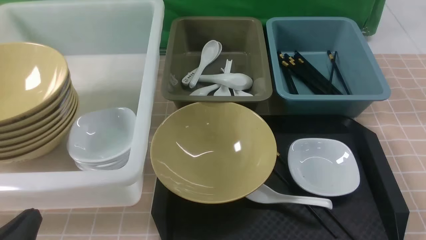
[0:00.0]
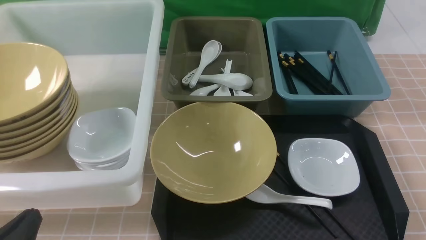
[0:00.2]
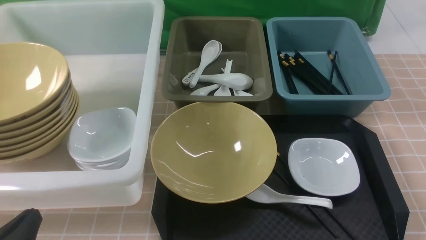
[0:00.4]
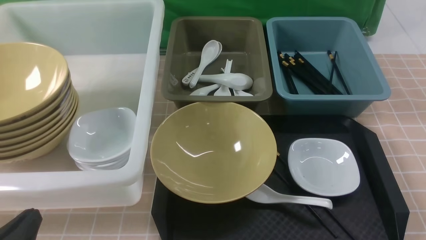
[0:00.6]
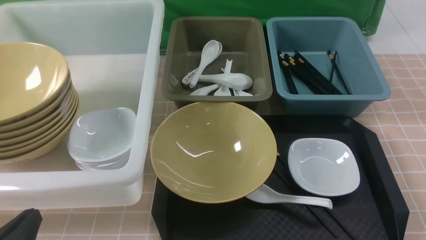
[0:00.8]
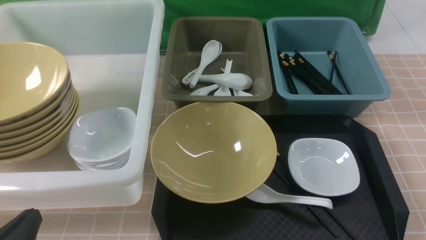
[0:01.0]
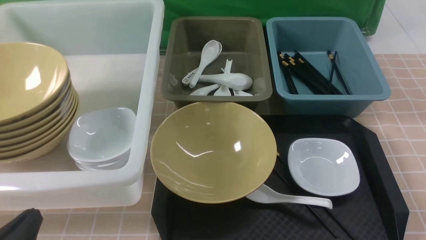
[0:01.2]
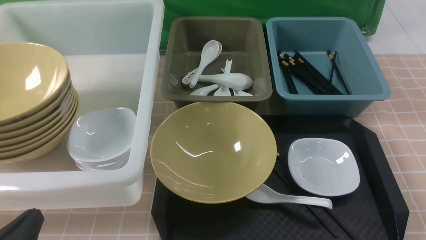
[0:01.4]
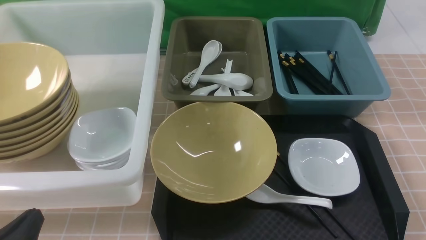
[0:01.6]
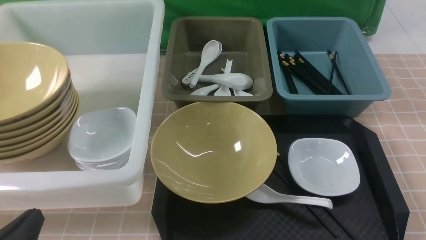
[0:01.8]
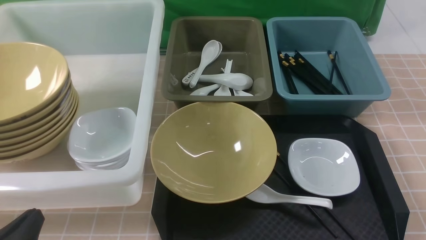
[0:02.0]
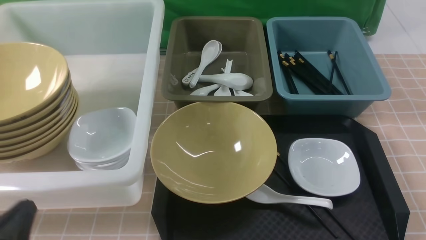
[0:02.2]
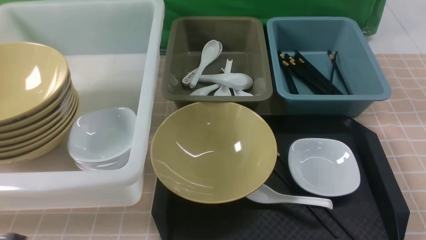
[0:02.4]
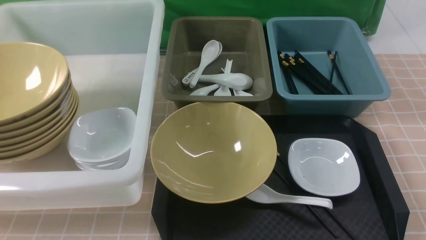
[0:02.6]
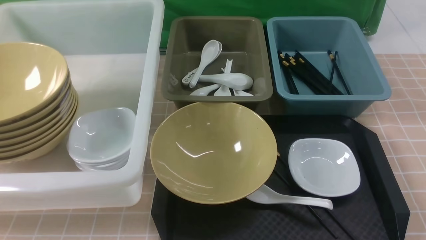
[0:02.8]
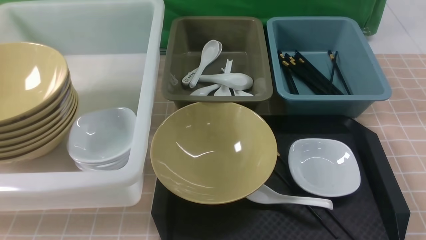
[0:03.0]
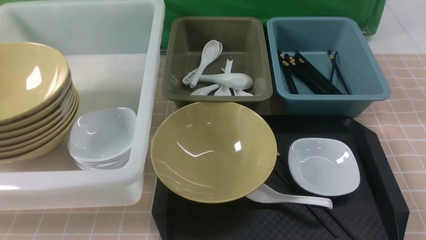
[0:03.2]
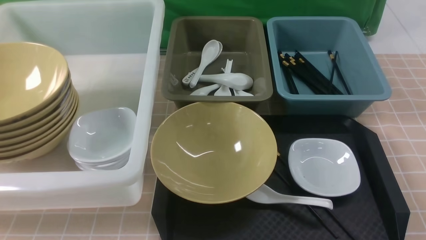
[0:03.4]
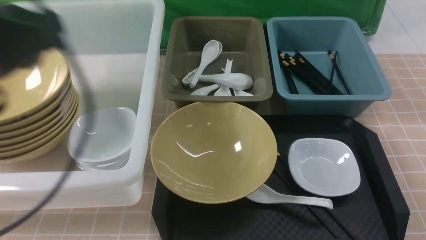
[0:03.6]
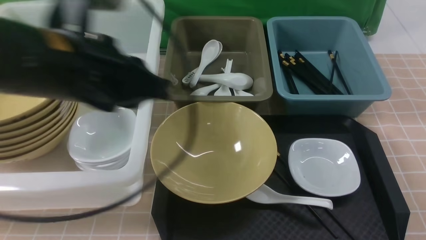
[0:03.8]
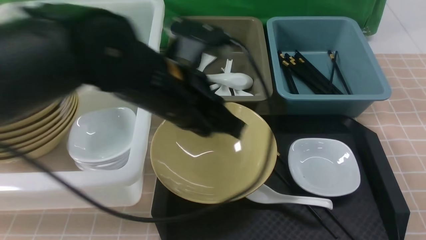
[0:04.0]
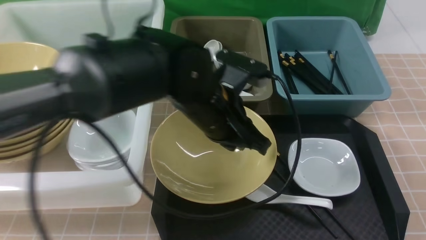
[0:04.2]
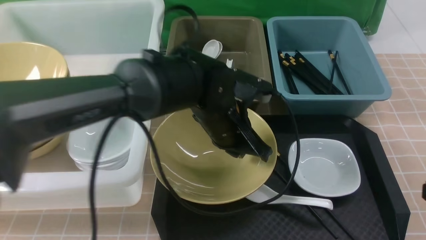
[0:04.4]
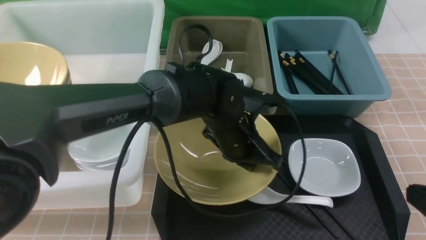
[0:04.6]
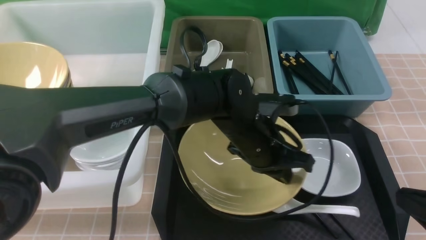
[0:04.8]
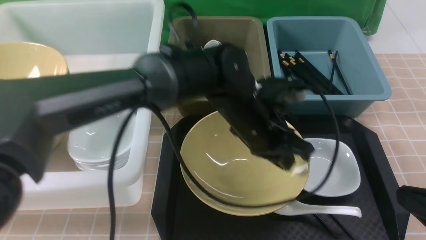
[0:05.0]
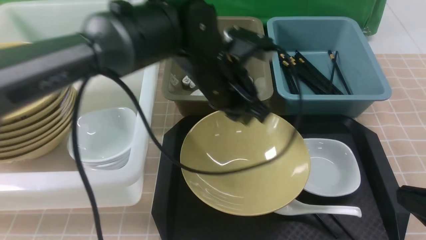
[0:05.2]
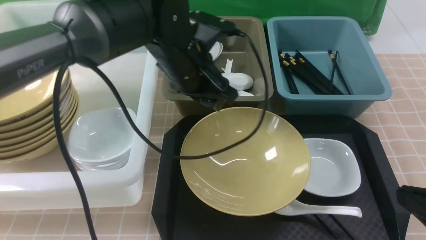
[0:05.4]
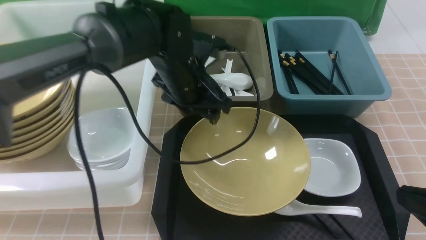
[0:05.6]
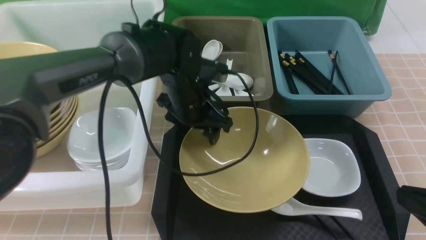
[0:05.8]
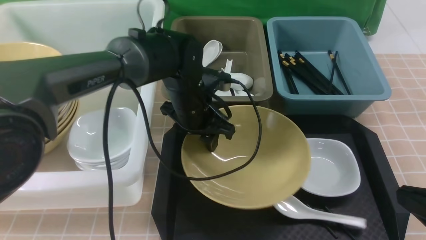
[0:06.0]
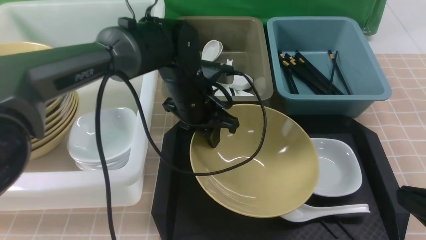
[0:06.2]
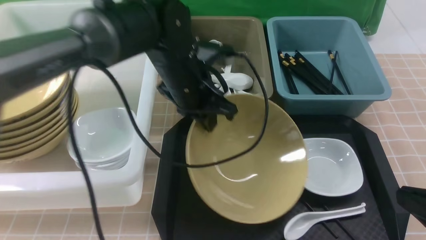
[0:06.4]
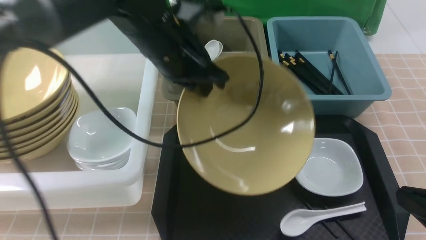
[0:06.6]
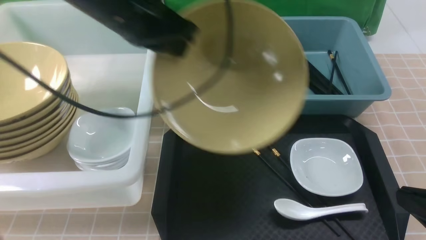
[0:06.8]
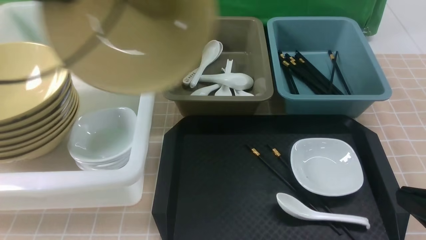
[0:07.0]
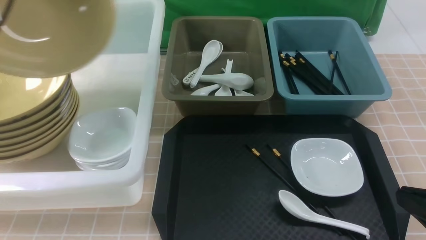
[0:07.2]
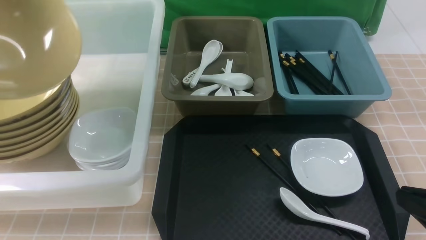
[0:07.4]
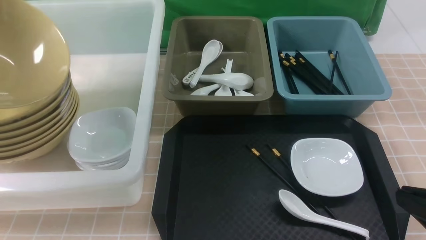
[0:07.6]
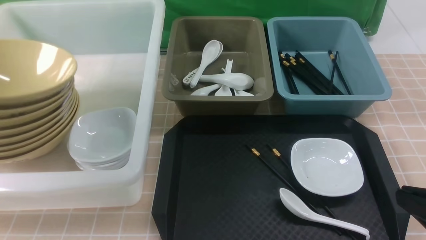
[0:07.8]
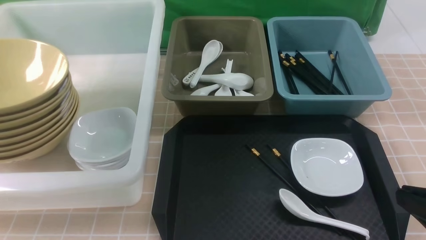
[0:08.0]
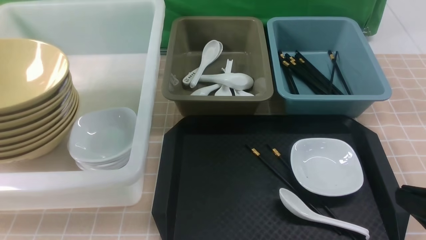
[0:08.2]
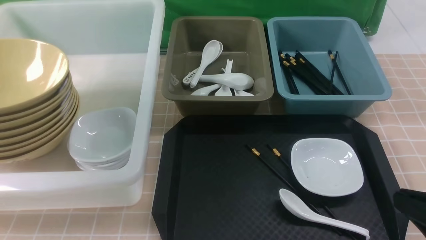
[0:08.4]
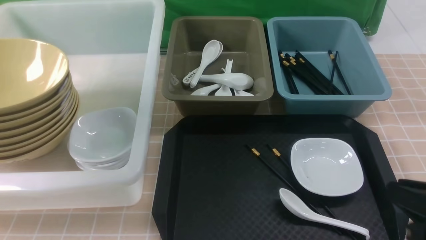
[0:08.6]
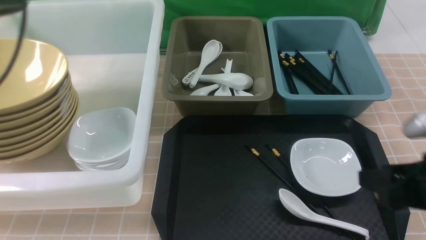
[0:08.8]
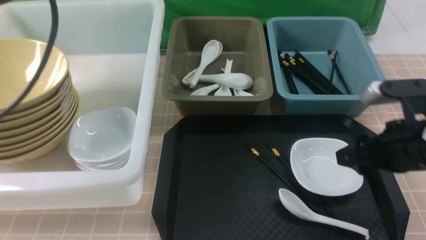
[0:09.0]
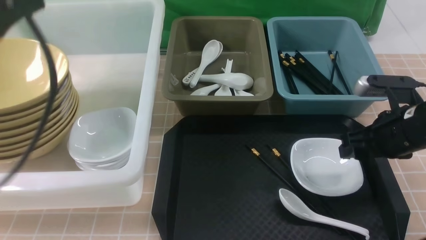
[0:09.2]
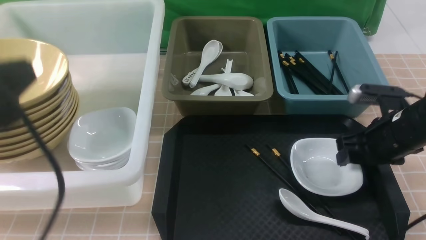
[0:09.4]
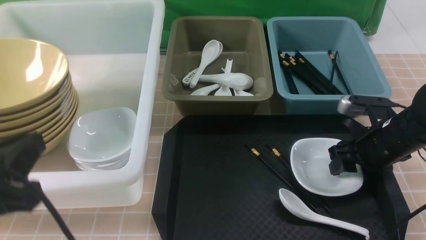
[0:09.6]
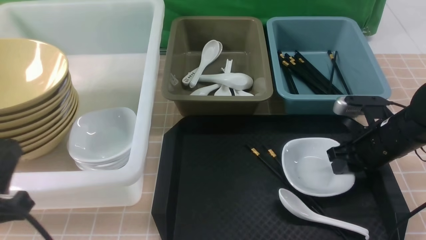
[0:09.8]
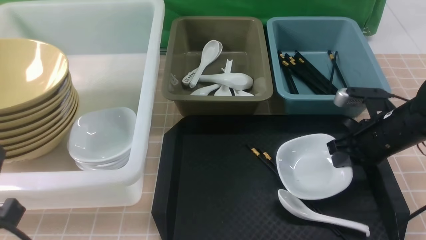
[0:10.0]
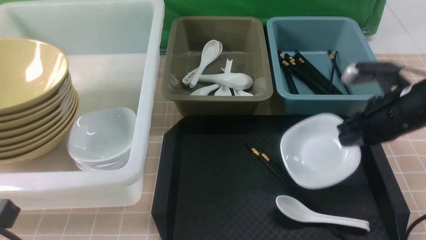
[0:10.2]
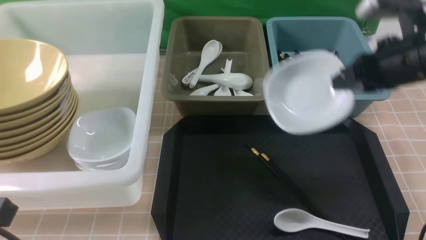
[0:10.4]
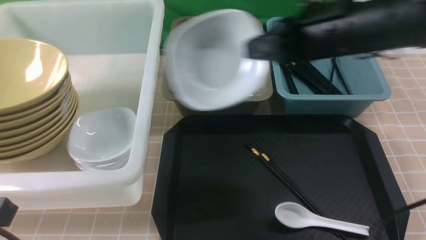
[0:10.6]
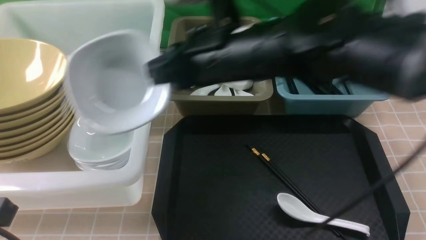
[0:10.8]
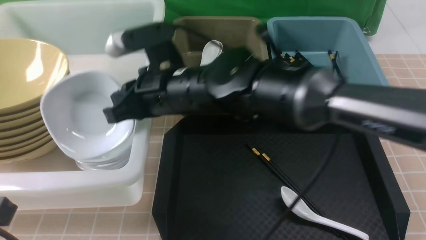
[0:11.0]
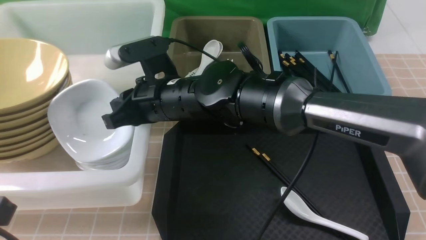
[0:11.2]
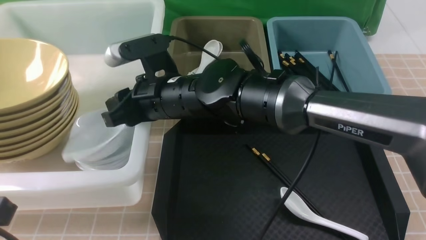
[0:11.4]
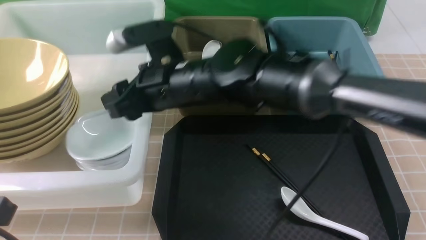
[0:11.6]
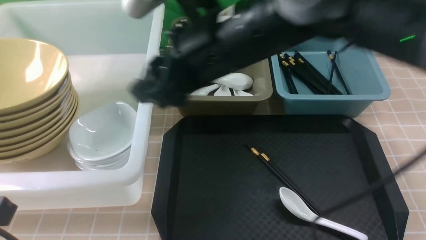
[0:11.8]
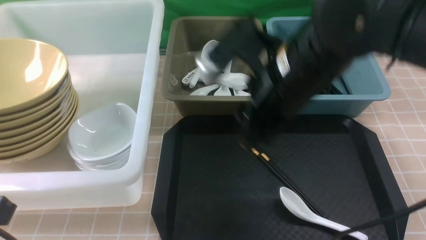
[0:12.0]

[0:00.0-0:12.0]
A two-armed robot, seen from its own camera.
Task of the whole recording: on brown table put chopsticks spoon bowls plates into blue grey white boxes.
Step, 0:00.0 to 0:06.2: use the left arm to grab the yellow noodle bowl on the left.
Step, 0:06.4 to 0:08.2: use the left arm to put the noodle bowl into the large storage box on the left.
Step, 0:08.4 to 0:09.8: use the right arm to grab the plate.
Step, 0:10.0 to 0:11.6: use the right arm to put the plate into the large storage box on the left.
0:00.0 to 0:01.6: Both grippers stay about where they are.
0:01.6 to 0:03.0: The grippers both shift upward by roughly 15 cm.
0:03.0 to 0:04.4: The right gripper heads forward, covering roughly 5 cm. Meanwhile the left gripper shifts some 40 cm forward, to the right and downward.
0:04.4 to 0:06.0: The left gripper moves forward and to the left, roughly 10 cm, and opens.
0:06.0 to 0:07.6: The left gripper moves to the left and upward, about 40 cm.
0:07.6 to 0:09.0: The right gripper travels forward by about 15 cm, and opens its fingers, while the left gripper moves to the right, upward and backward, approximately 20 cm, and opens and closes again.
0:09.0 to 0:10.4: The right gripper is displaced forward and upward by approximately 10 cm, and closes. The left gripper travels downward and backward by some 20 cm.
0:10.4 to 0:12.0: The right gripper is displaced to the left by roughly 10 cm, and opens up.

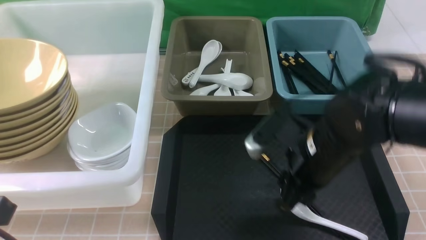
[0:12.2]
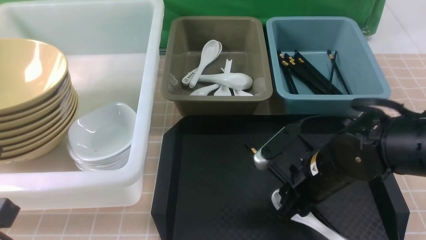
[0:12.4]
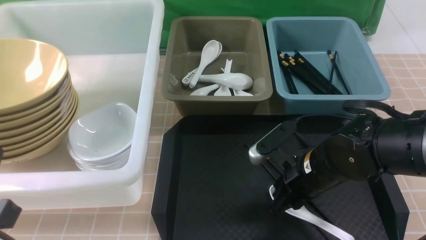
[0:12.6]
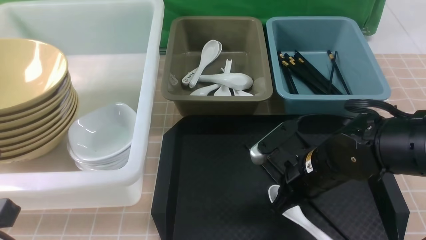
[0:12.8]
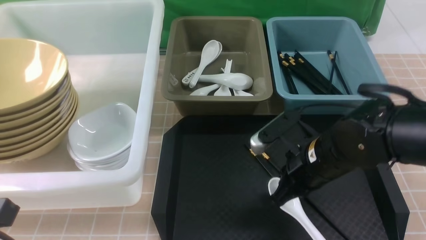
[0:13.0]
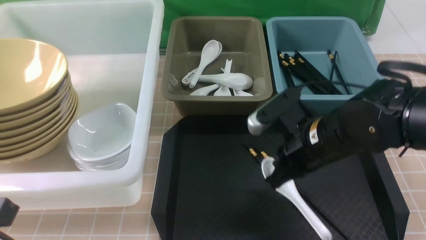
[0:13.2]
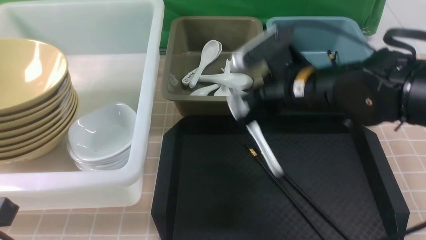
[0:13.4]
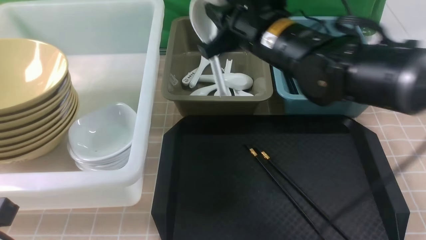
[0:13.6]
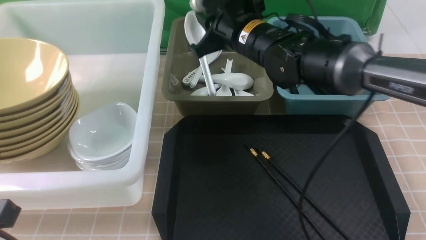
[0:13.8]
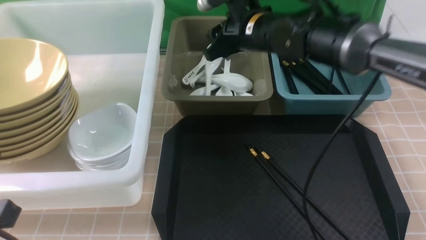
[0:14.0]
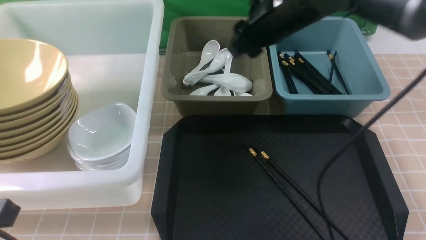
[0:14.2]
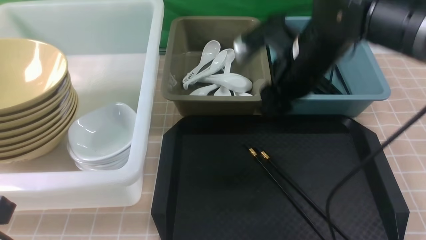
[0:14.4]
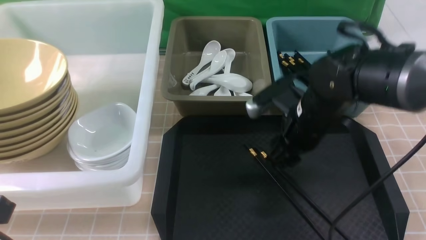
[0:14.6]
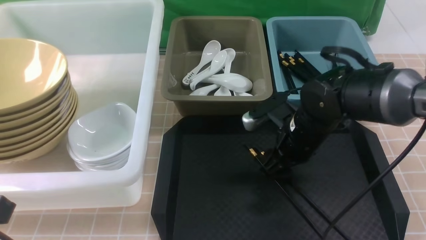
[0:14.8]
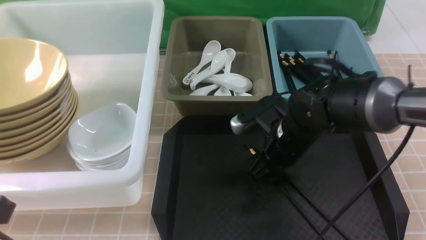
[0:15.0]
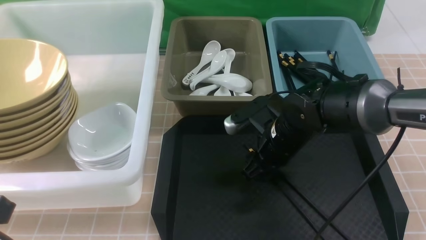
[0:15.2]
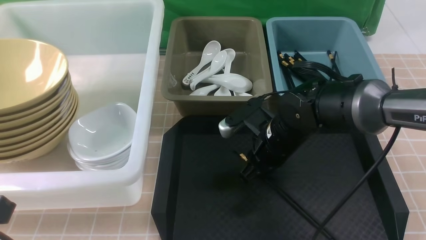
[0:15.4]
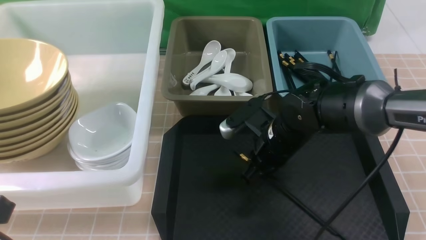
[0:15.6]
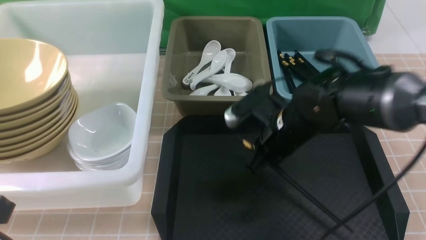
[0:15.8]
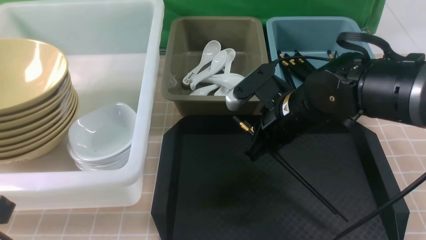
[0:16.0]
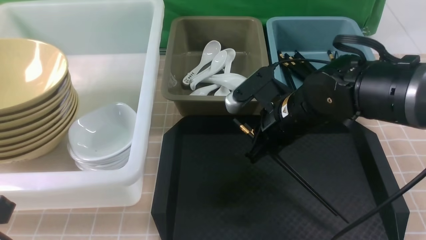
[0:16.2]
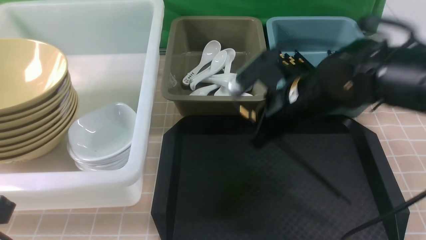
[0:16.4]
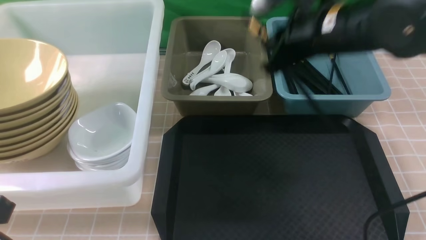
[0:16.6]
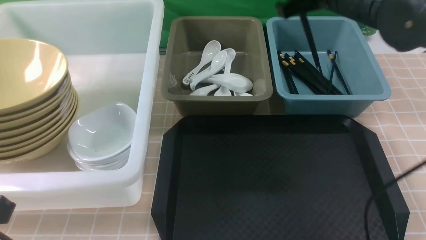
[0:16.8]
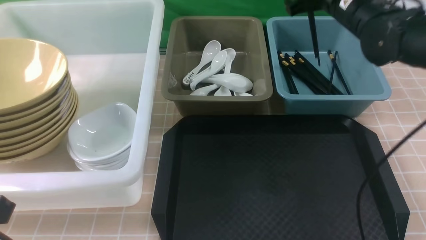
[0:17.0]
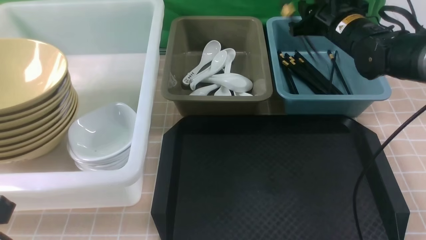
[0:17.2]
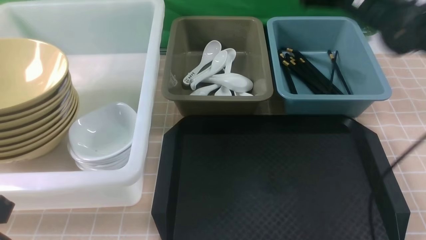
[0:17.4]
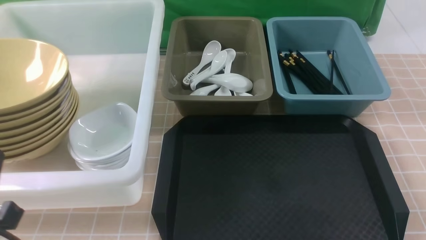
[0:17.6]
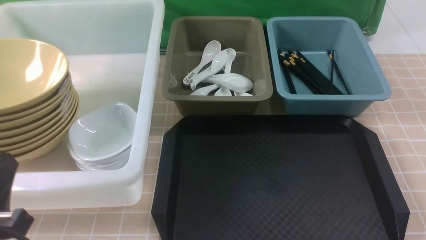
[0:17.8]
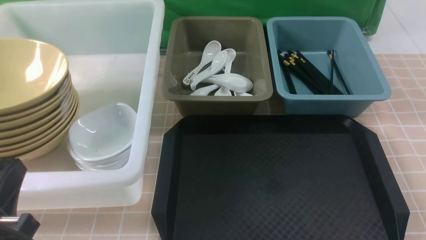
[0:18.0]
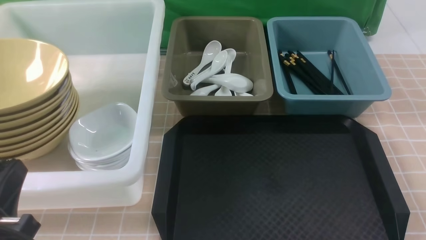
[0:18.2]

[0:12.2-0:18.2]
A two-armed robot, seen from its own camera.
Task of the whole recording: on brown table put chopsticks spoon bowls plates into blue grey white boxes.
Step, 0:12.2 to 0:13.0: use the right arm to grab the soup spoon in the middle.
Step, 0:13.2 to 0:14.0: use the right arm to put the soup spoon into the small storage box in the middle.
Step, 0:14.2 to 0:15.6: use the right arm to grab the chopsticks.
Step, 0:16.0 to 0:17.4: use the right arm to put the chopsticks into the small storage box on the right.
0:12.2 to 0:13.8: The right gripper is displaced forward and upward by approximately 15 cm, and closes and opens again.
0:13.8 to 0:15.2: The right gripper shifts some 15 cm downward and backward.
0:15.2 to 0:16.6: The right gripper moves upward, approximately 15 cm, and closes its fingers.
0:16.6 to 0:18.2: The right gripper moves backward and to the right, roughly 35 cm.
